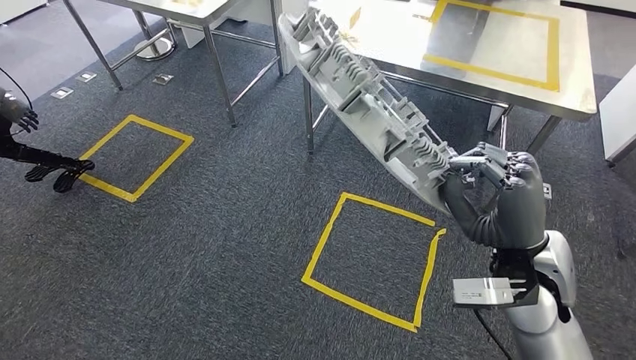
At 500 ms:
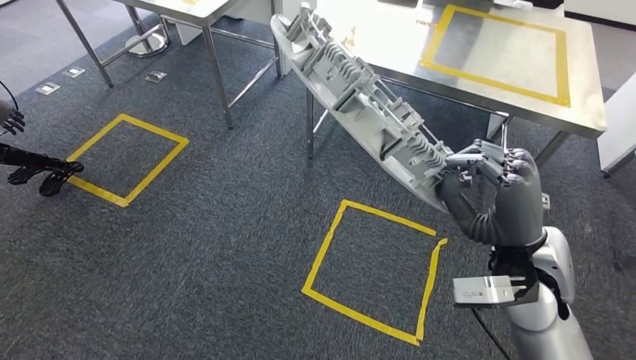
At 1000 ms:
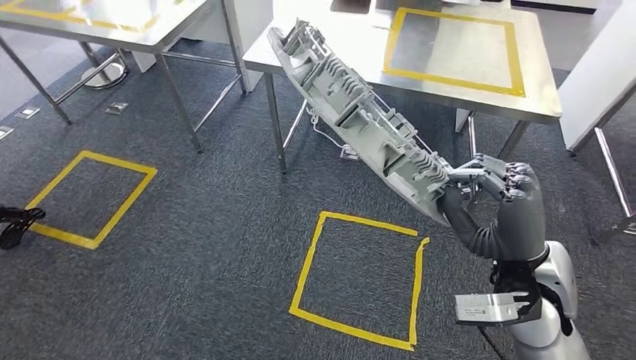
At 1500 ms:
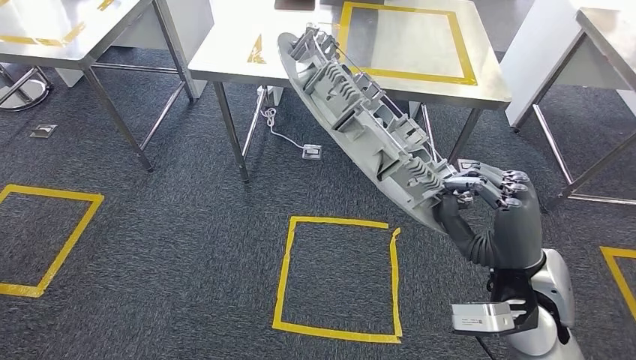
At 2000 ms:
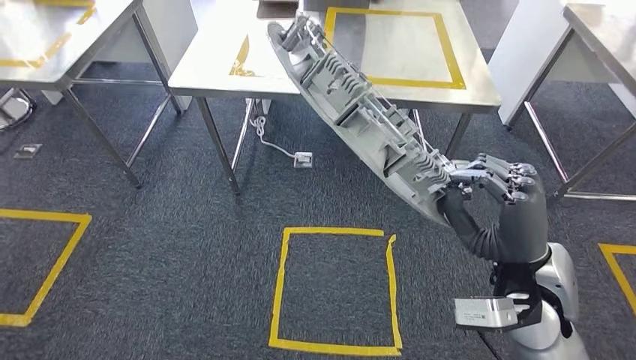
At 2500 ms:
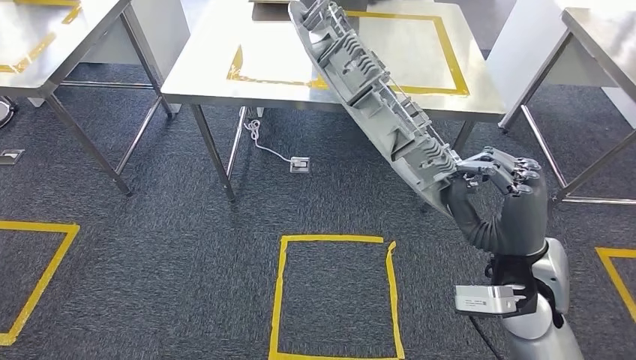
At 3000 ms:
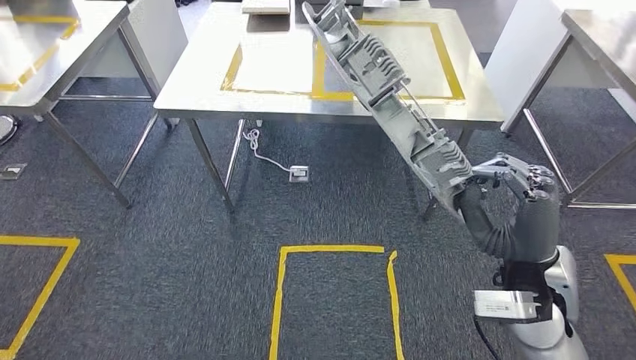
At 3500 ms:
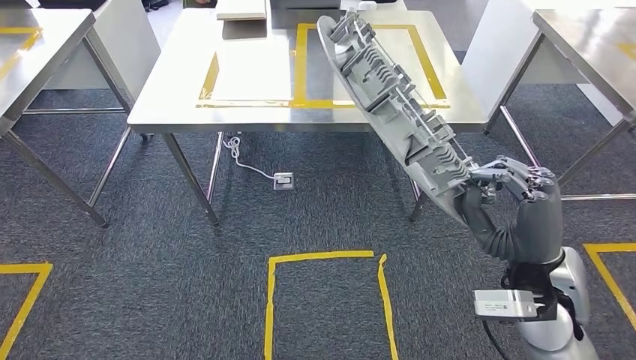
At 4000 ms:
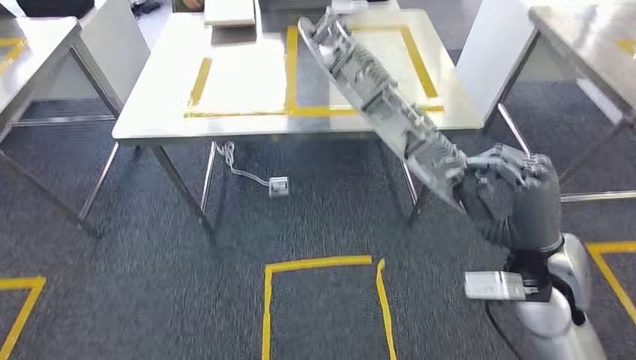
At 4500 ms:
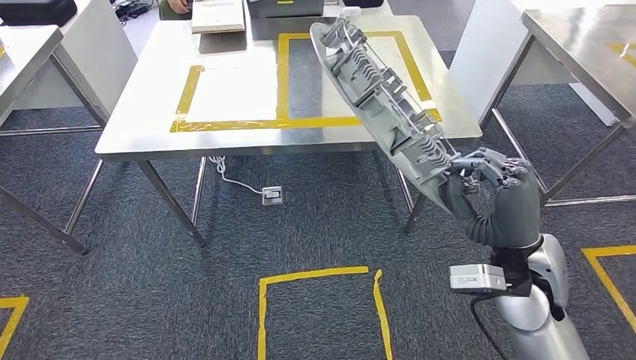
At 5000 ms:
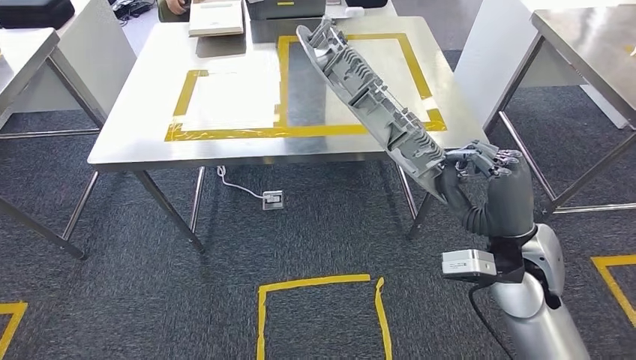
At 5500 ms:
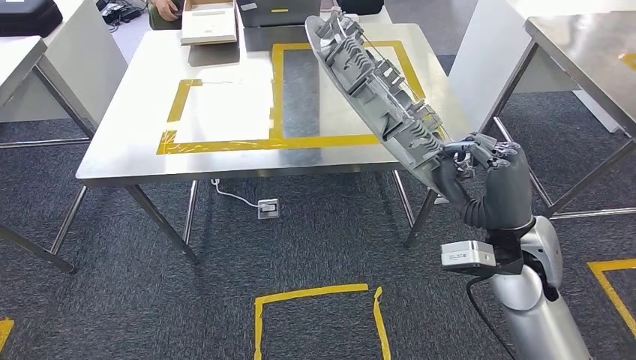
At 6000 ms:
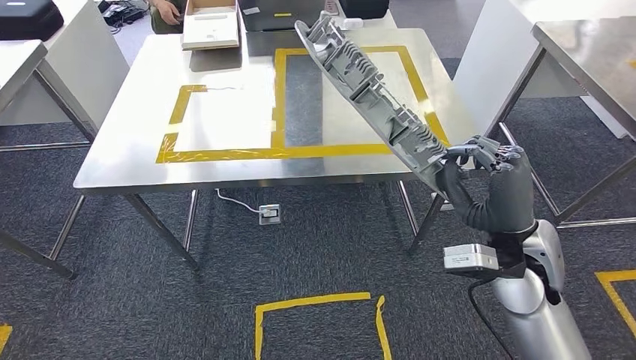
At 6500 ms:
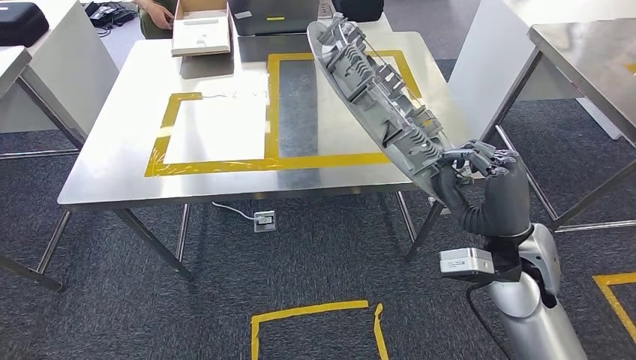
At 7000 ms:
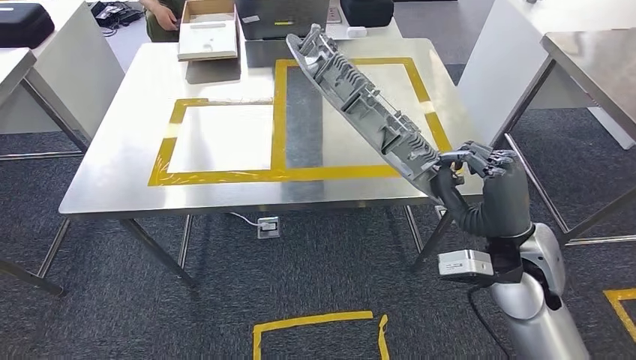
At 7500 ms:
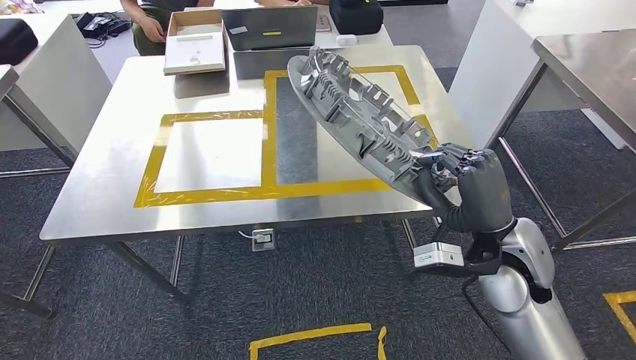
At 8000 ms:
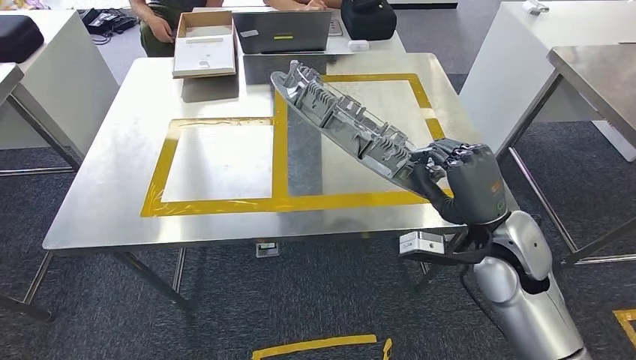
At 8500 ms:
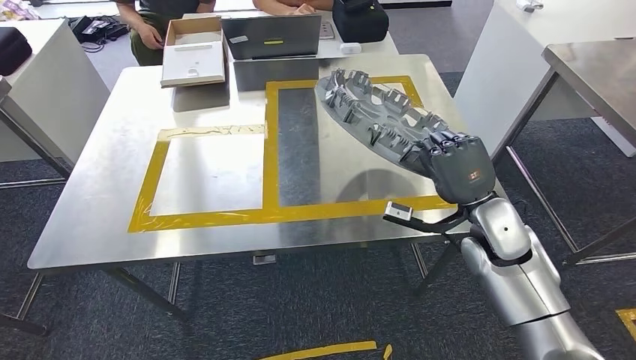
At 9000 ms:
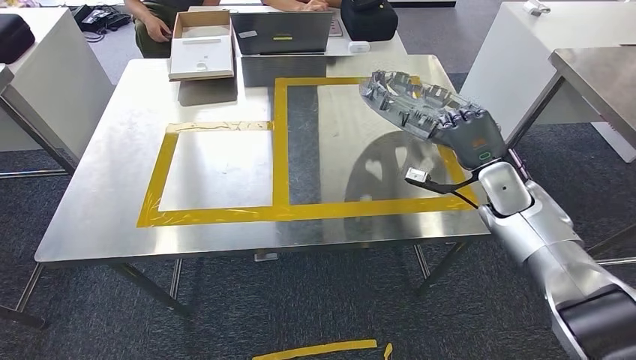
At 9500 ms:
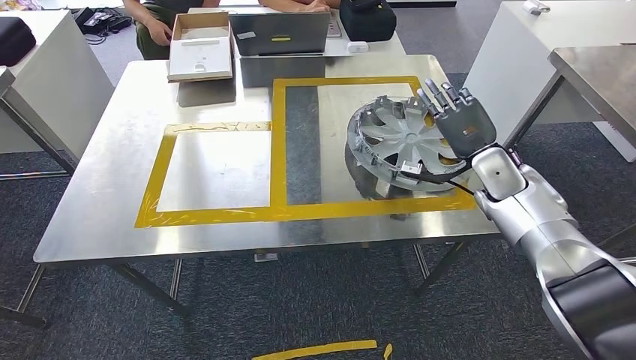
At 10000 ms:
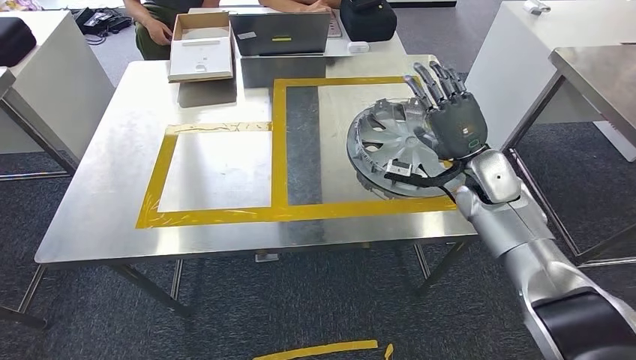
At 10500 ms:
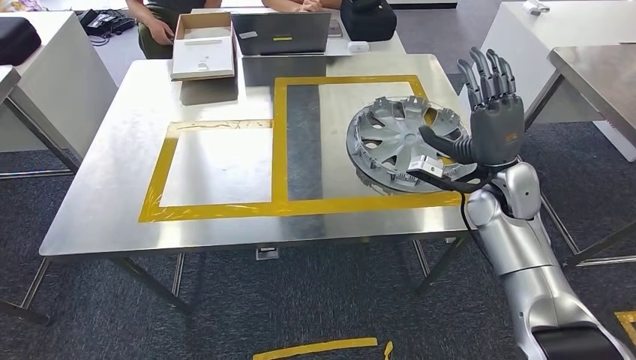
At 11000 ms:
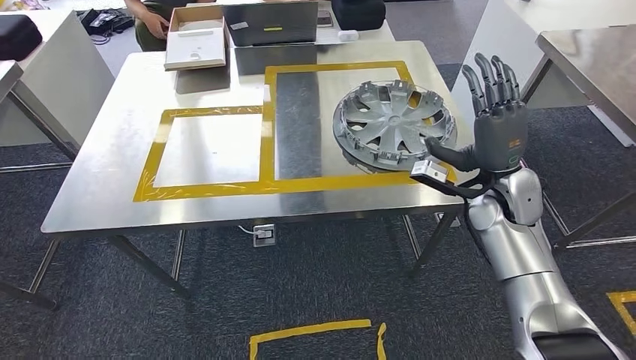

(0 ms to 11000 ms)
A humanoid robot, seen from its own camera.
Step, 0 ms - 4000 ms: Move the small parts to the workbench.

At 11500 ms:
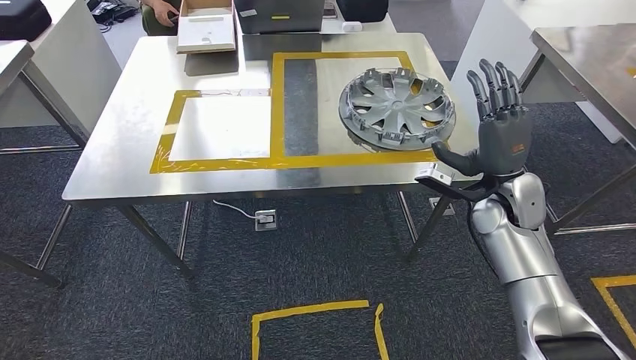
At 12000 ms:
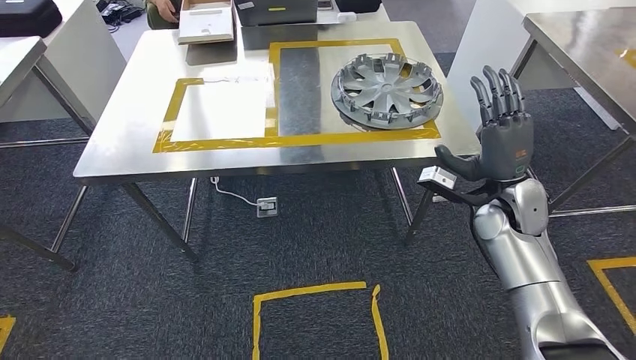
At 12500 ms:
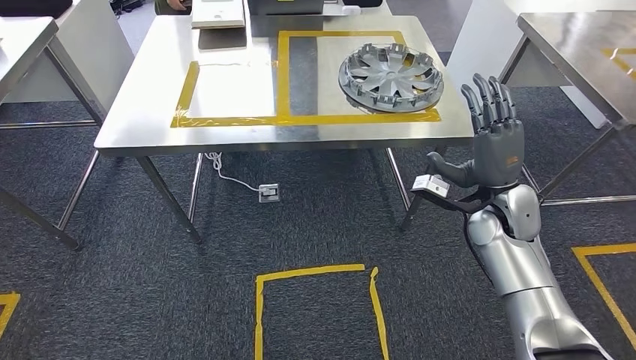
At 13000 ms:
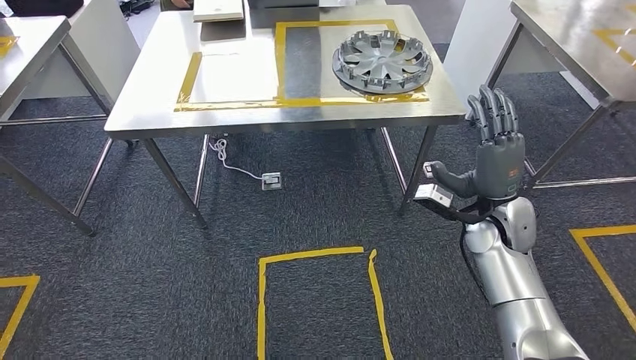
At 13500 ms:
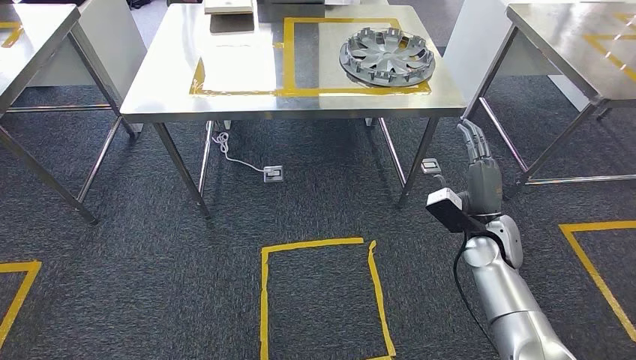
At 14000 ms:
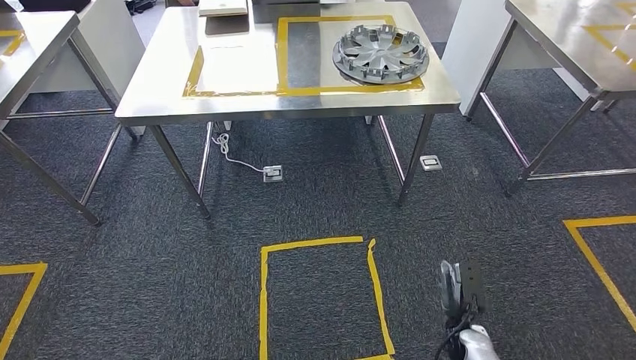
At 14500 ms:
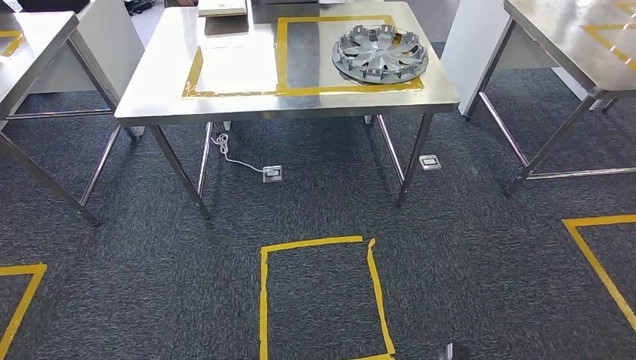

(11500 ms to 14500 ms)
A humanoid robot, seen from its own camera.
Step, 12000 ms - 14500 ms: Return to the initial position at the workbench.
